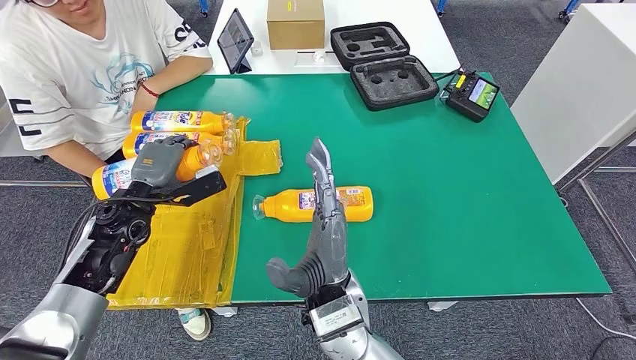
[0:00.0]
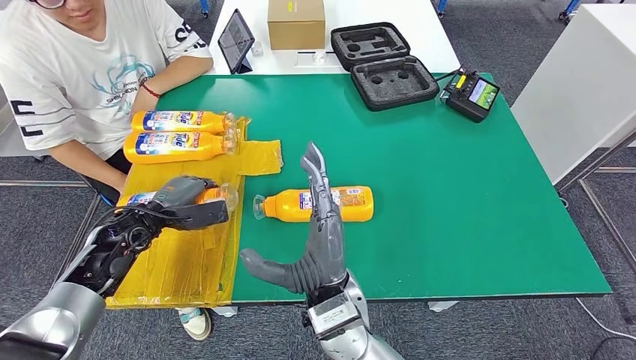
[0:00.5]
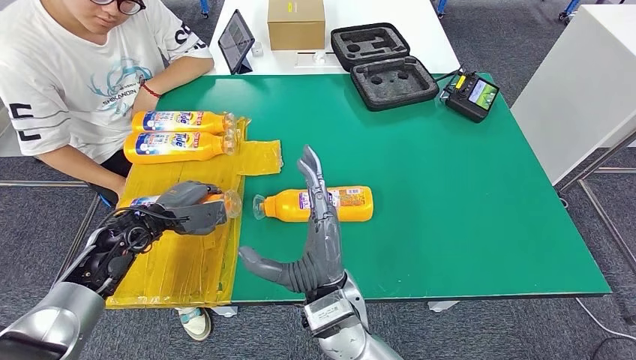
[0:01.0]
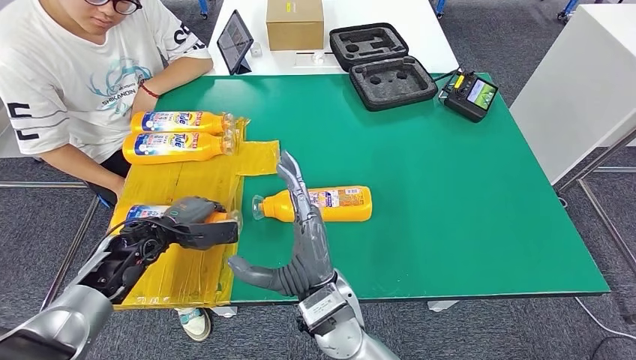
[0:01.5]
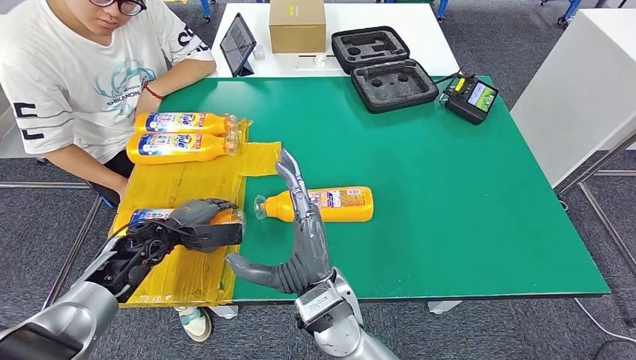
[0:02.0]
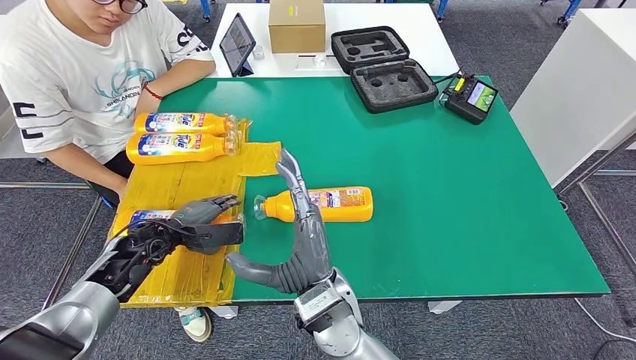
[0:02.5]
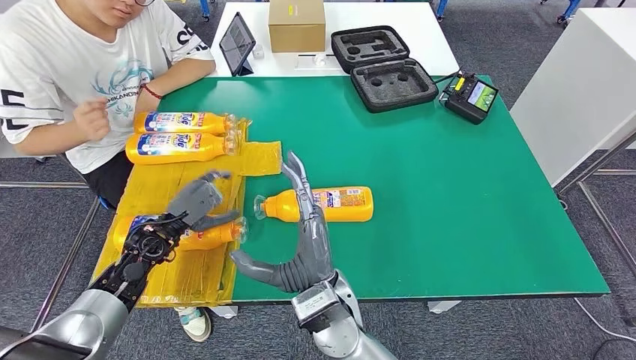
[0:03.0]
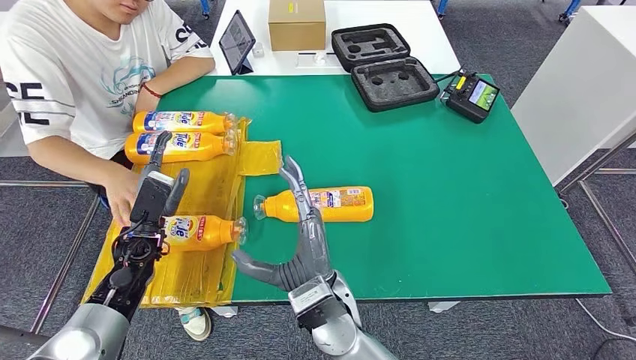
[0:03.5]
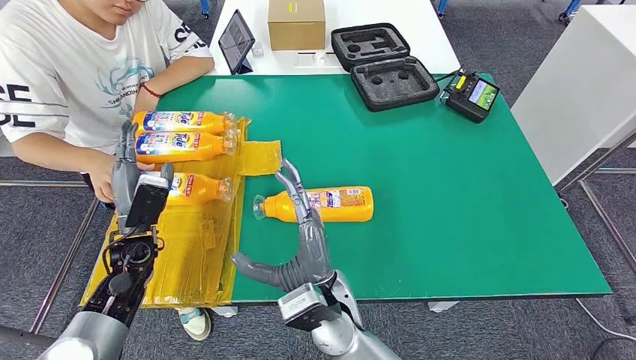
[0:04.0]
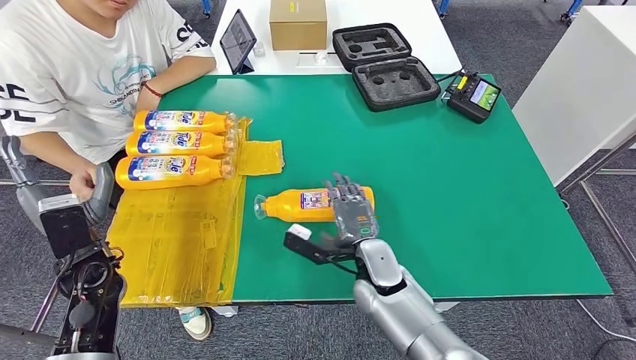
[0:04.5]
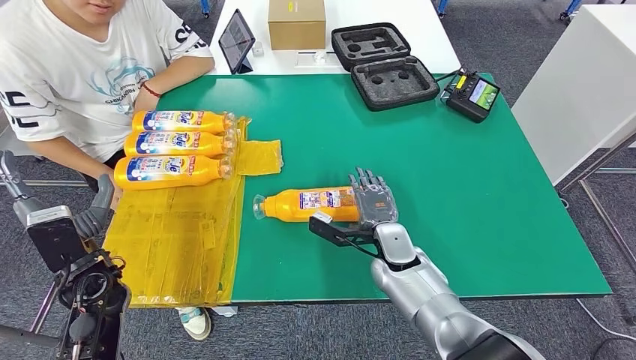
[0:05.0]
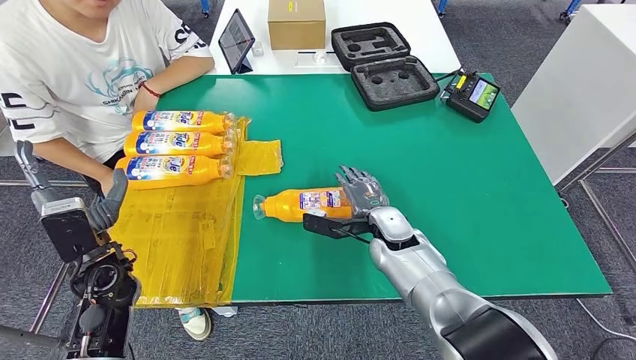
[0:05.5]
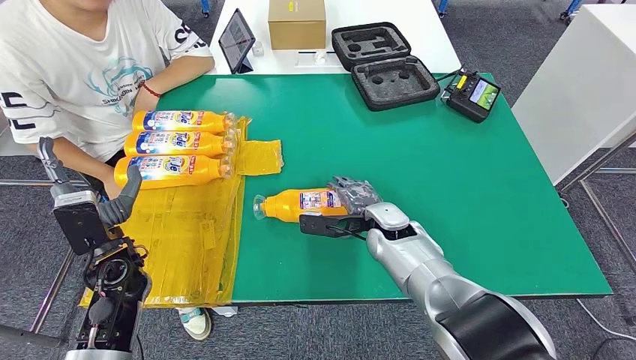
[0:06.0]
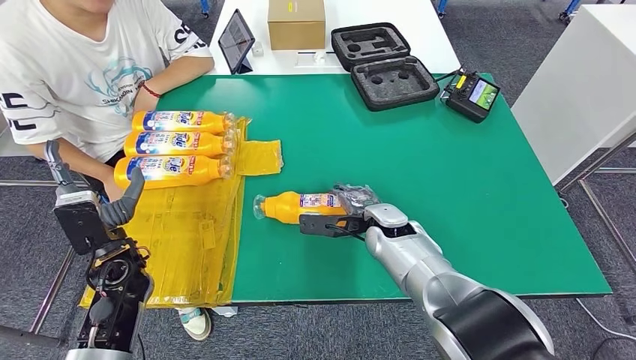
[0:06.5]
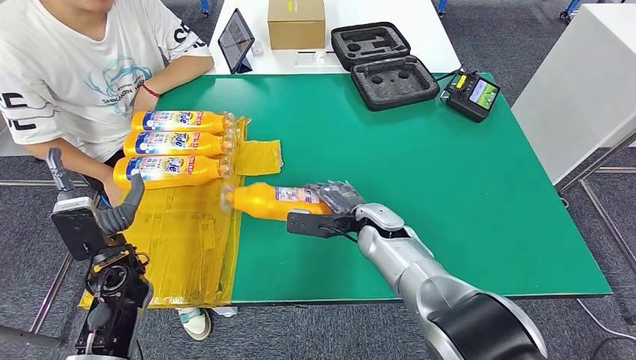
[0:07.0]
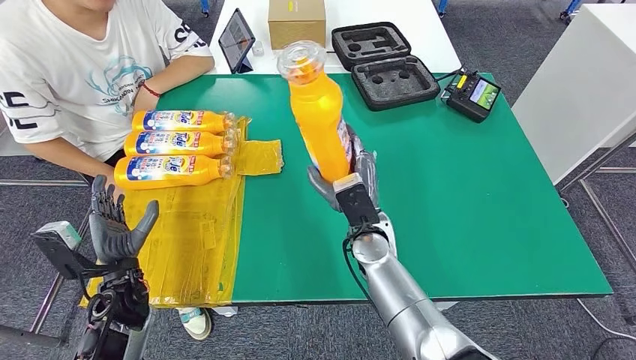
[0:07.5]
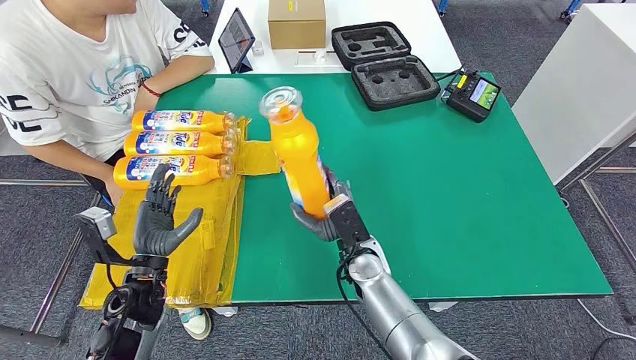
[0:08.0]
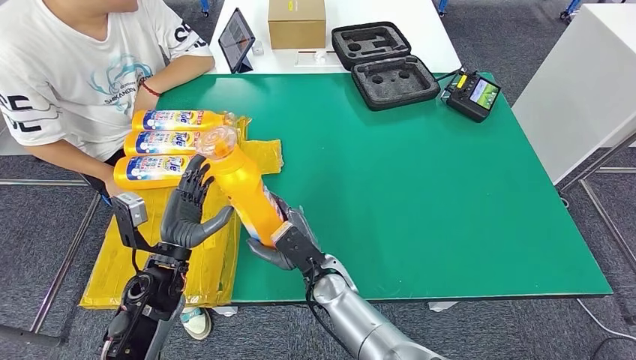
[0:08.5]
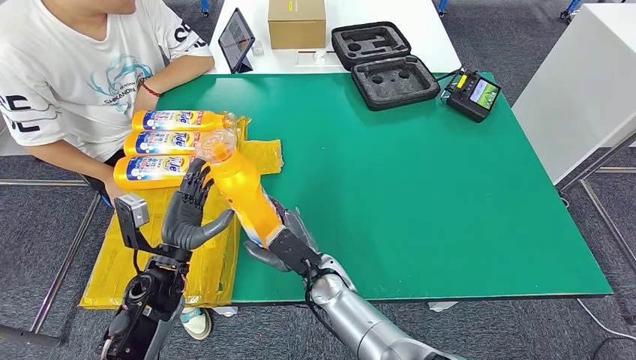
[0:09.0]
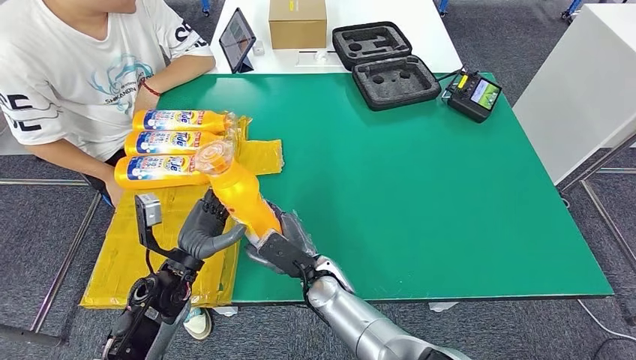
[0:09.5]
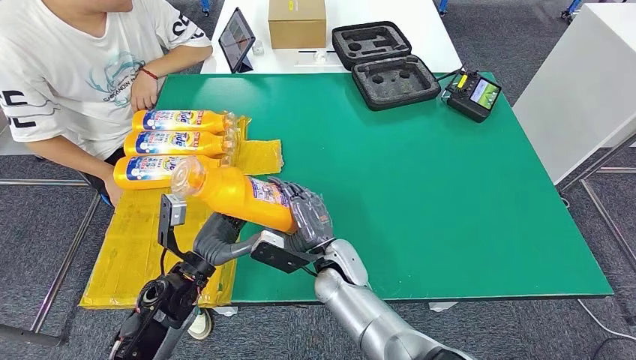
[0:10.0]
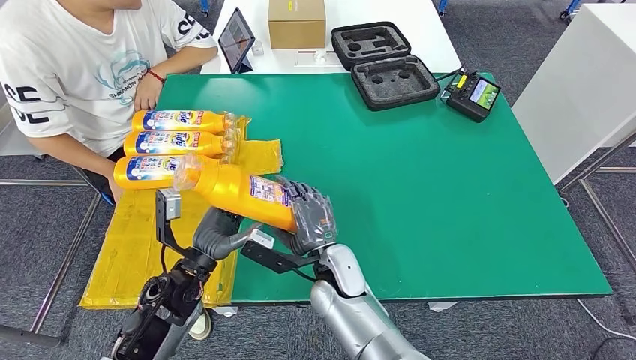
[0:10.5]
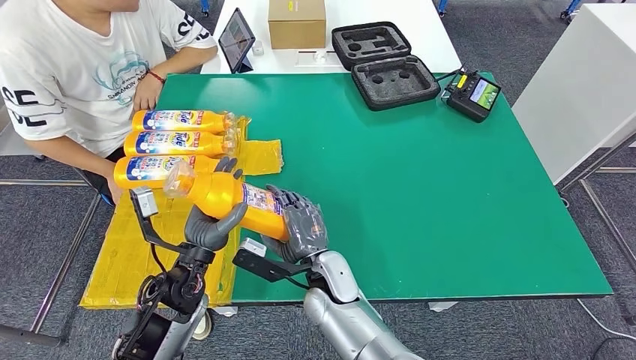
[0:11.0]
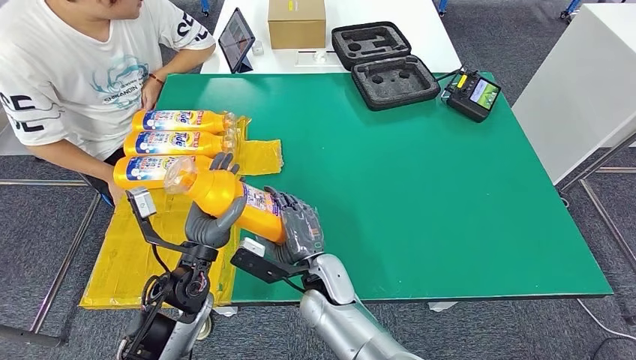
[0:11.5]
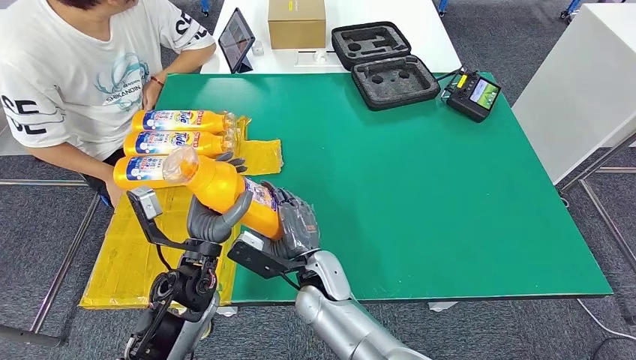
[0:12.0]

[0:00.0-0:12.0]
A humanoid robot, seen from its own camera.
Step, 0:00.0 to 0:03.5: Flip the fast-moving consumer goods bottle to the front side.
Step, 0:06.5 to 0:07.5: Pick up the fast-moving consumer goods bottle from the table.
0:06.0 to 0:08.0: The left hand moves some 5 cm; the right hand travels backward by some 5 cm.
0:10.0 to 0:12.0: The left hand shifts by some 5 cm.

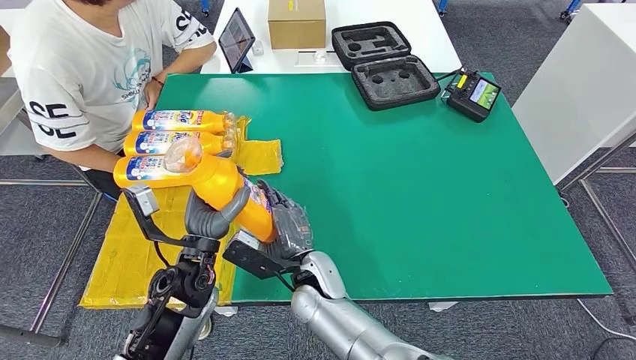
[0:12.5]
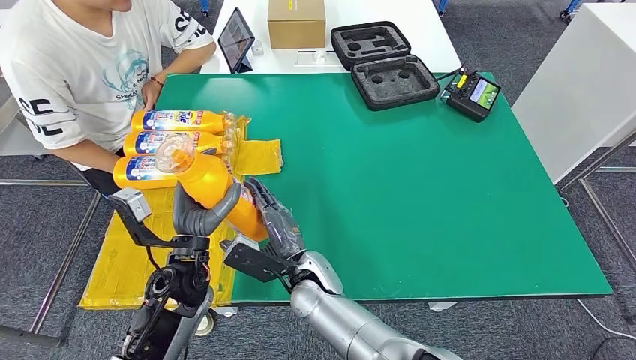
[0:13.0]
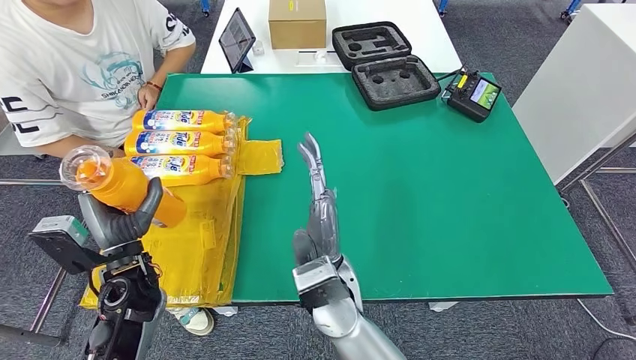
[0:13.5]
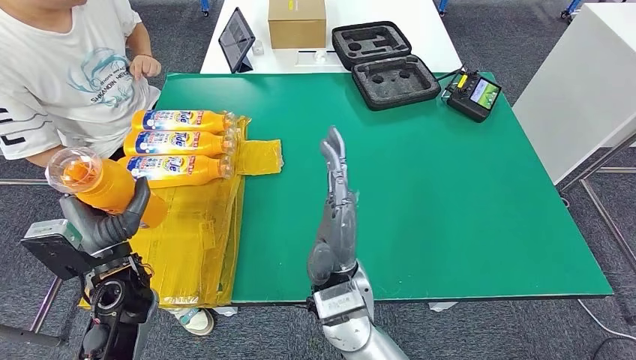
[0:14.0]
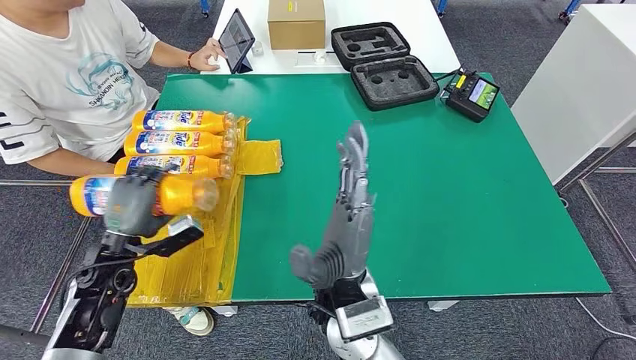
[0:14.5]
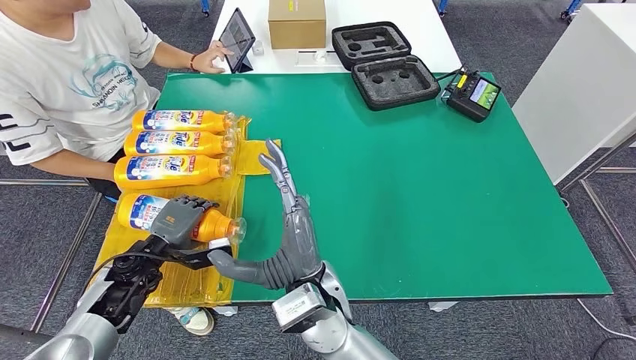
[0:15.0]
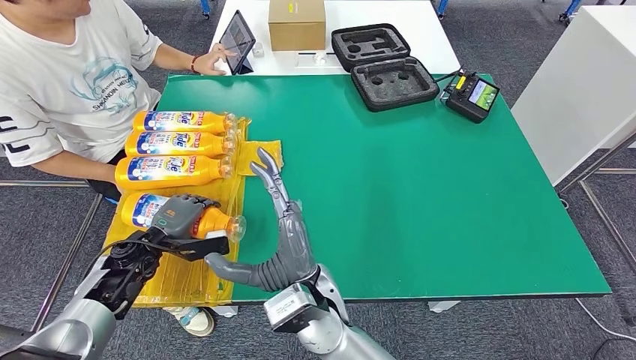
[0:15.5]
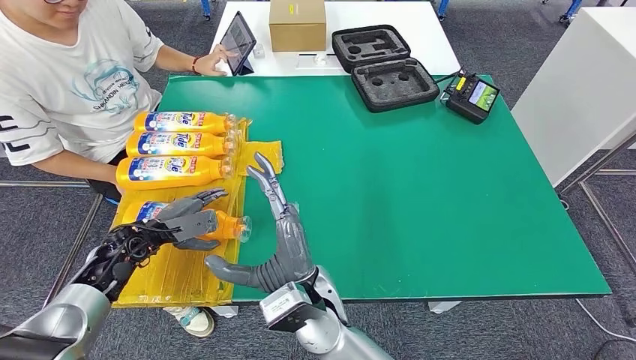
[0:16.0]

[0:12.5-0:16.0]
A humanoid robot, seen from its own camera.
Step, 0:12.5 to 0:16.0: Flip the fast-moving consumer goods bottle to the front side.
